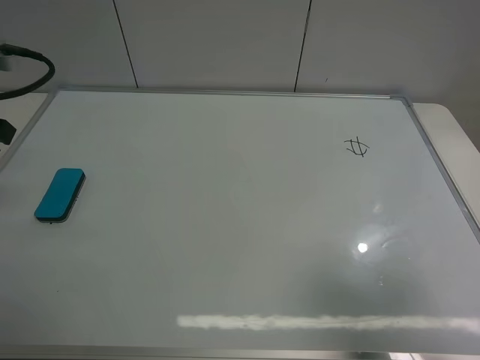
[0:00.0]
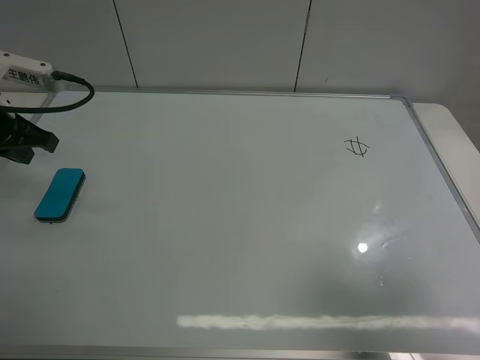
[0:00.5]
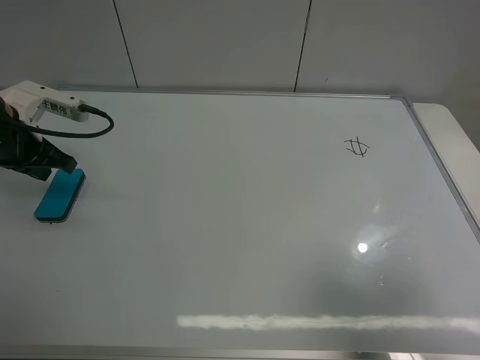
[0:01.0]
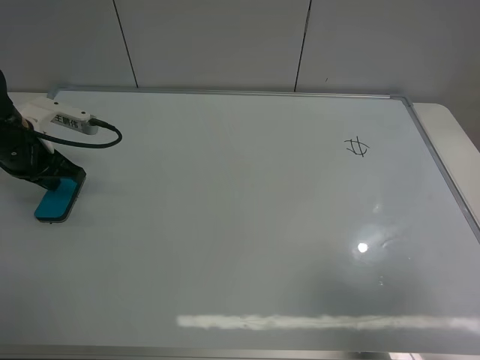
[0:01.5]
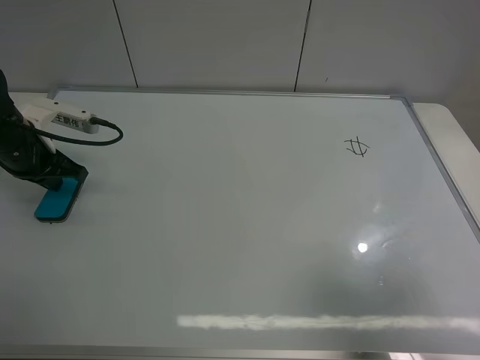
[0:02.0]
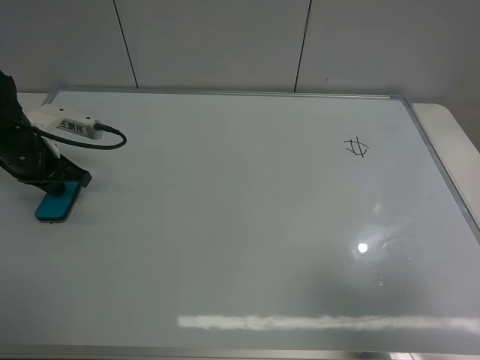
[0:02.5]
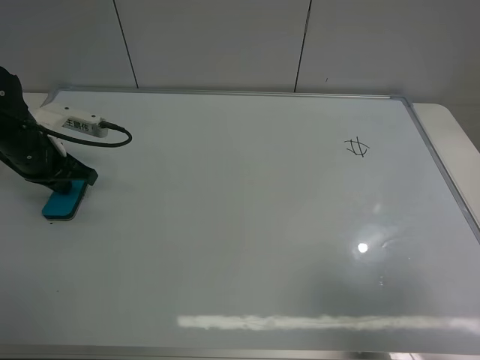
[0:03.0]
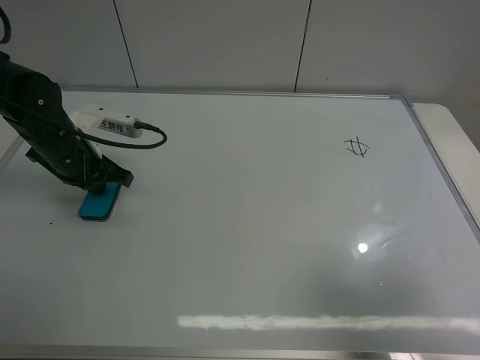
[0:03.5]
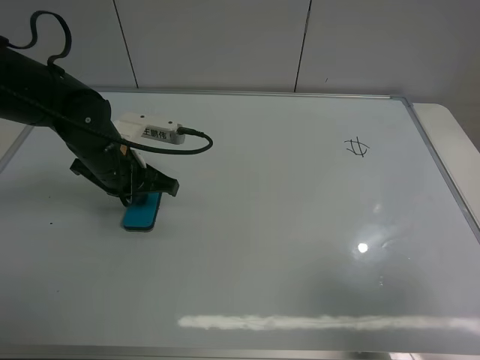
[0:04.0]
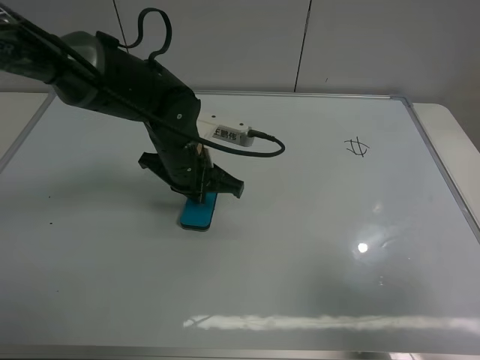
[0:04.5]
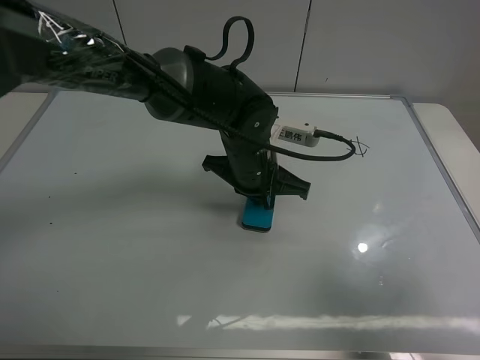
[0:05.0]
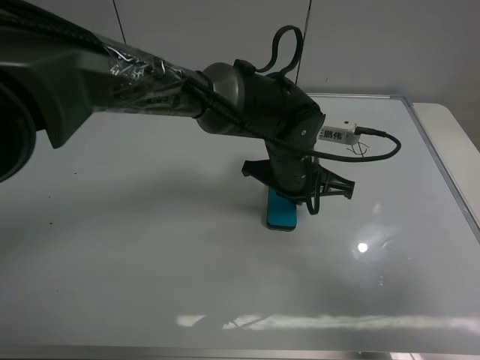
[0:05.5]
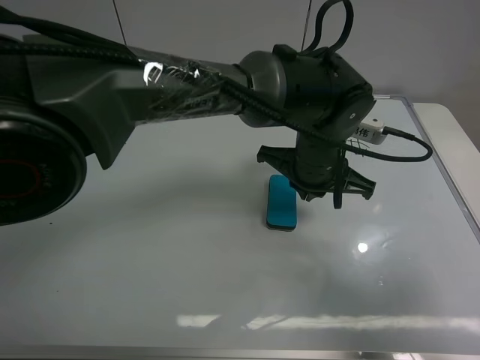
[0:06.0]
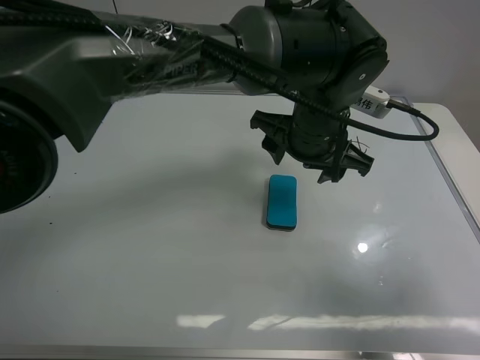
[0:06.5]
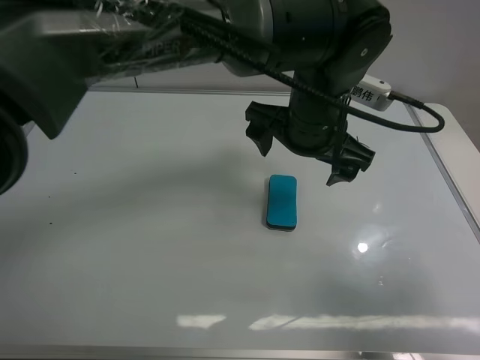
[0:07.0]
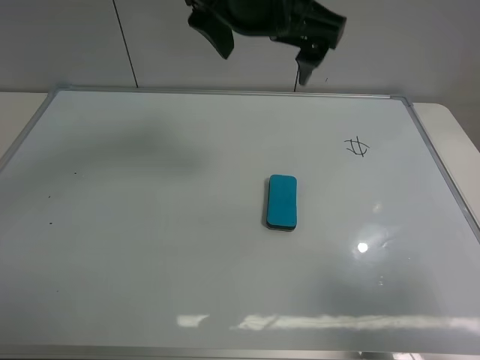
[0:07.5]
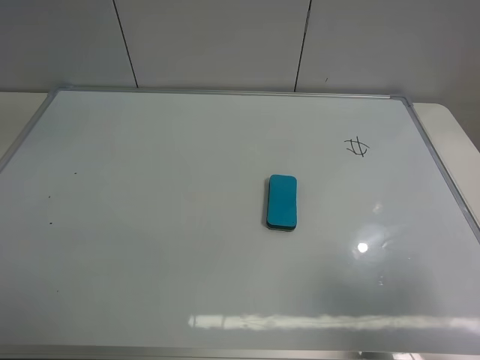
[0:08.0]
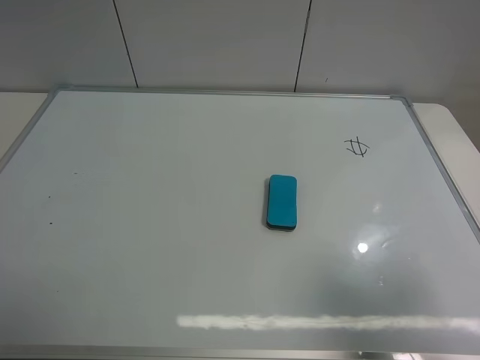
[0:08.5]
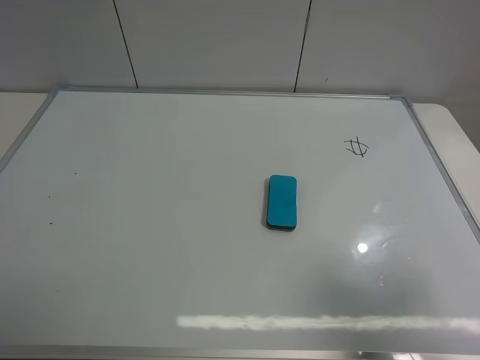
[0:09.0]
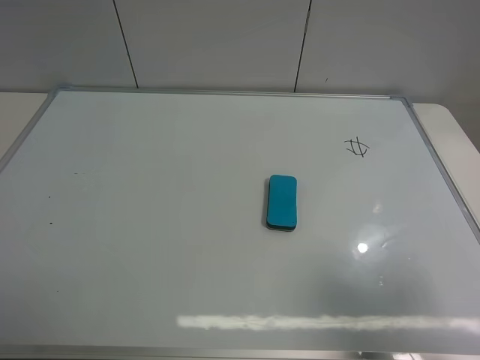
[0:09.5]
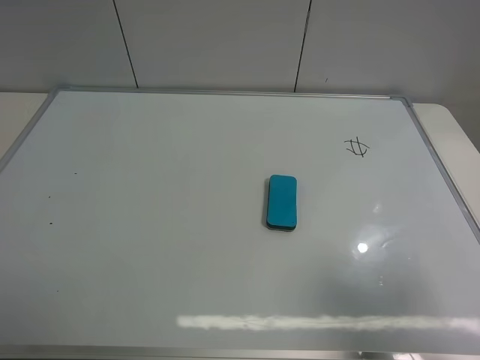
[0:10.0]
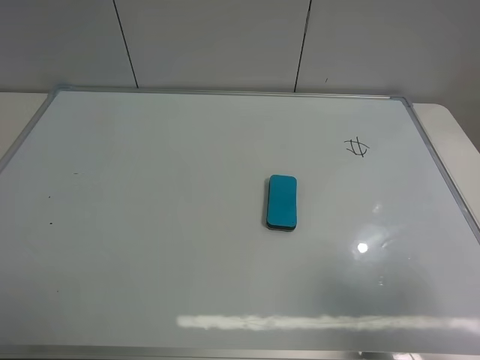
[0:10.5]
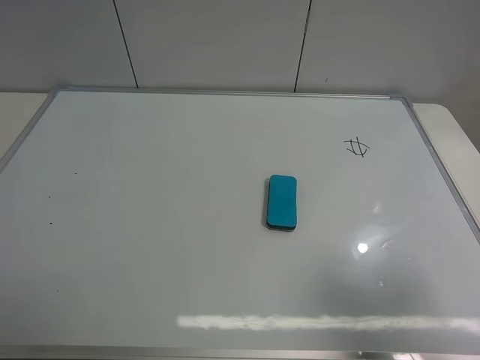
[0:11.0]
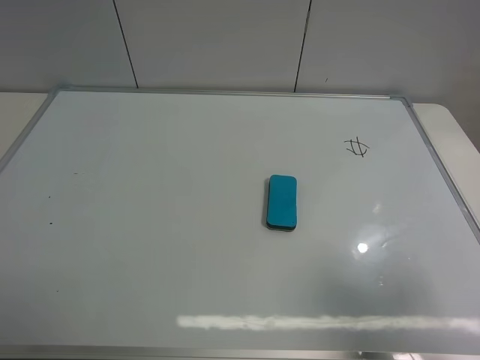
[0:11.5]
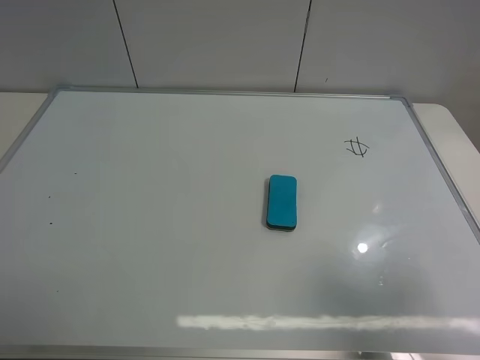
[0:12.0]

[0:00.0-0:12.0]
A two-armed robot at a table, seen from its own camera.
Task of the whole recording: use the left gripper to place the eraser in the right, use the right gripper to pick up the eraser, wipe the notes on the whiteboard clean, and then put it down.
Step, 0:00.0 to 0:05.5: Move the board eraser to the right of the whiteboard with left gripper.
0:00.0 to 0:02.0: The left gripper is displaced downward and forward by some 15 cm.
0:02.0 to 0:04.0: The left gripper moves to the right, about 15 cm.
0:04.0 to 0:06.0: The left gripper moves to the right, approximately 25 cm.
0:06.0 to 0:08.0: The left gripper moves upward and to the left, approximately 40 cm, and opens its fingers.
0:10.0 to 0:12.0: The two grippers keep their place.

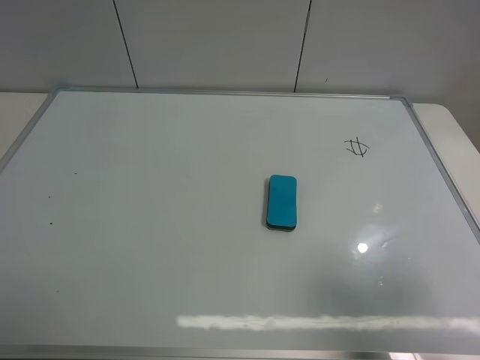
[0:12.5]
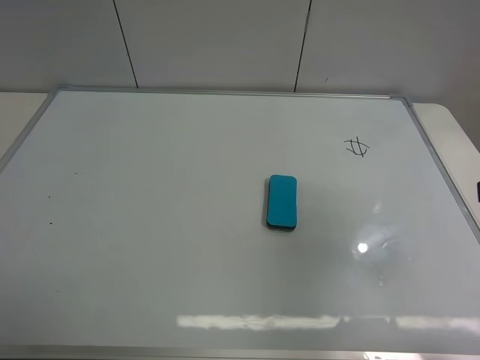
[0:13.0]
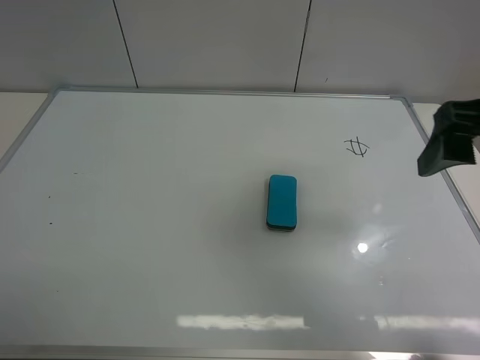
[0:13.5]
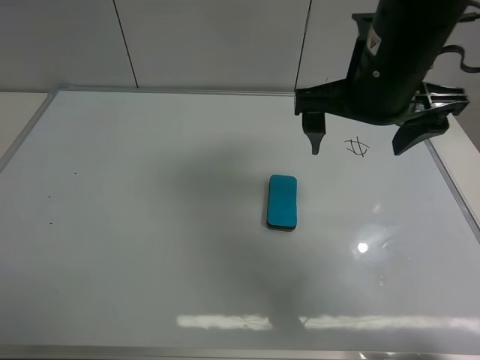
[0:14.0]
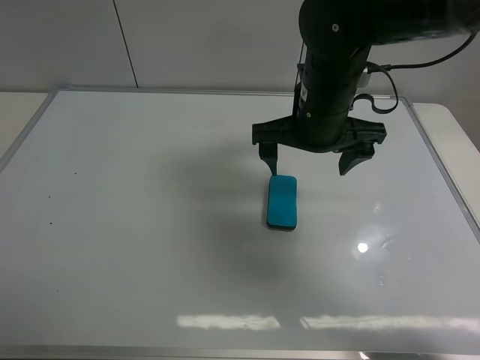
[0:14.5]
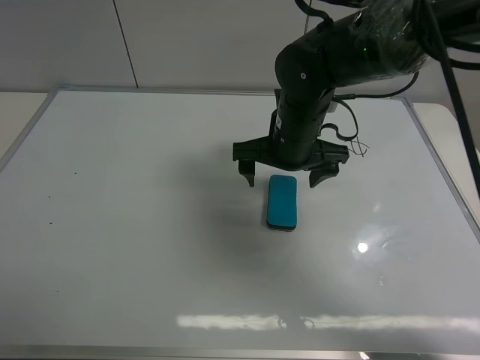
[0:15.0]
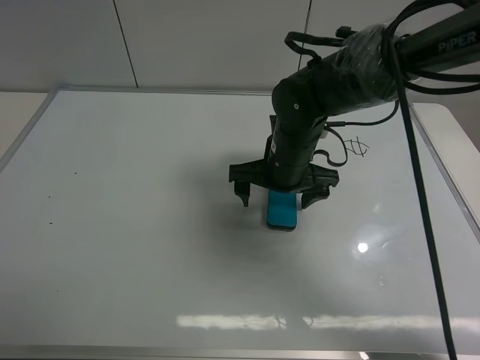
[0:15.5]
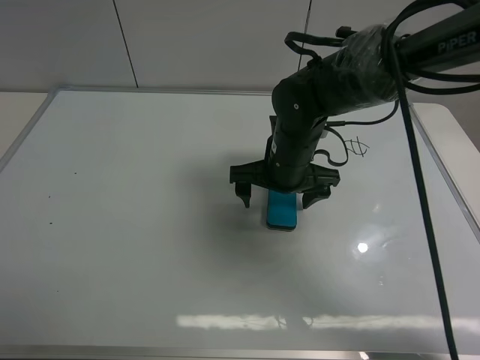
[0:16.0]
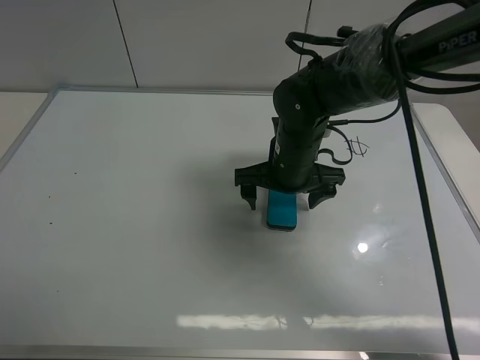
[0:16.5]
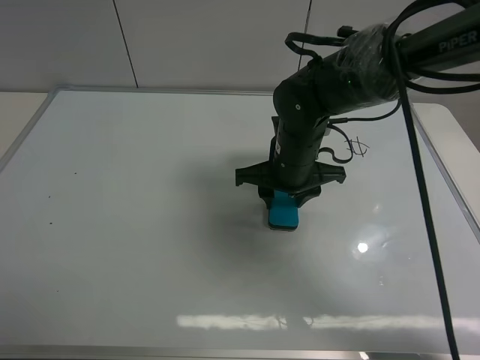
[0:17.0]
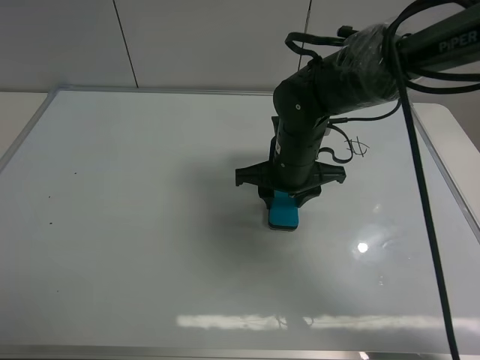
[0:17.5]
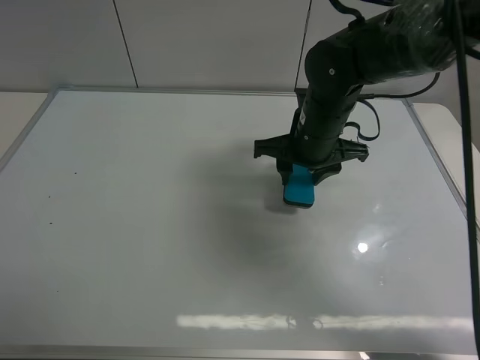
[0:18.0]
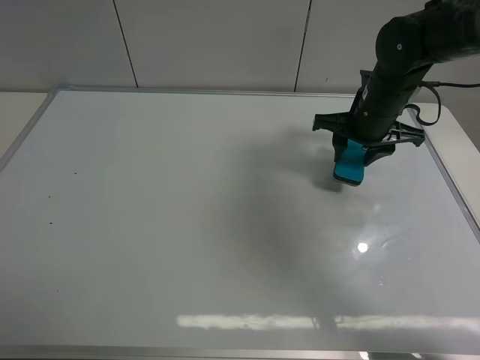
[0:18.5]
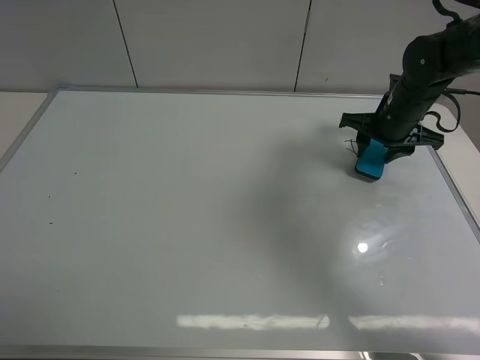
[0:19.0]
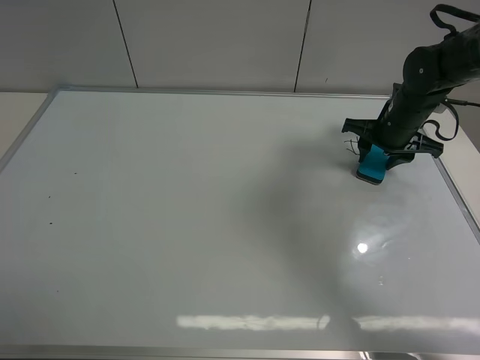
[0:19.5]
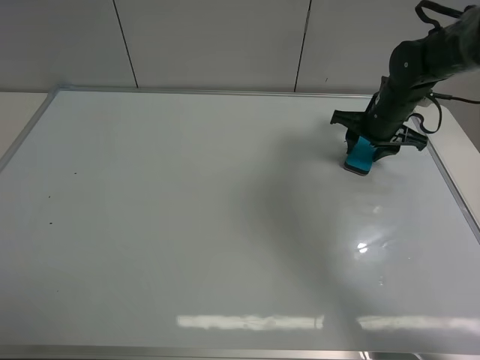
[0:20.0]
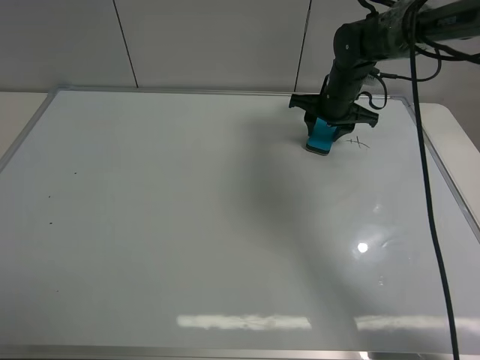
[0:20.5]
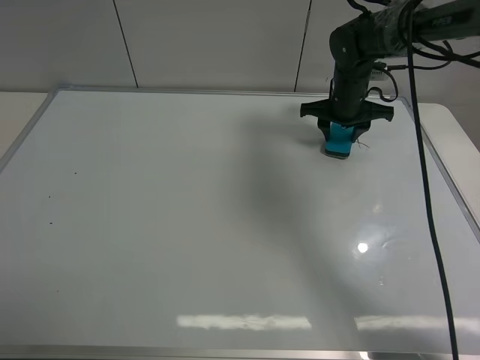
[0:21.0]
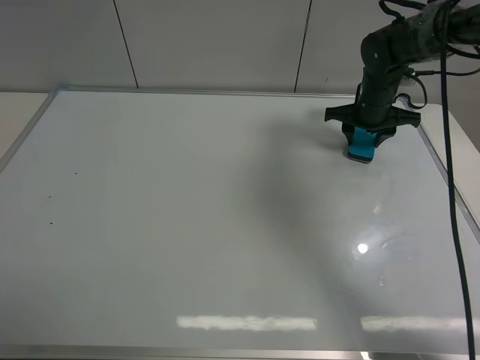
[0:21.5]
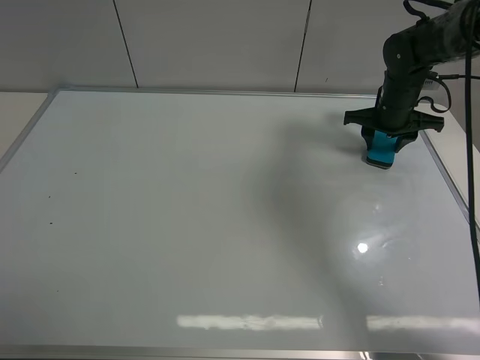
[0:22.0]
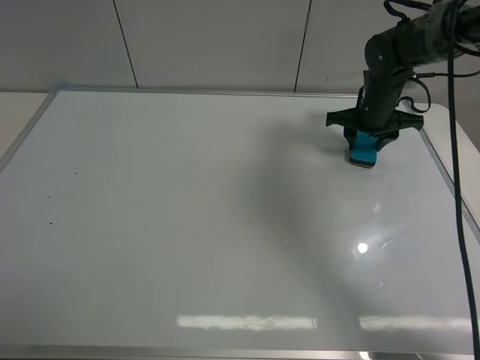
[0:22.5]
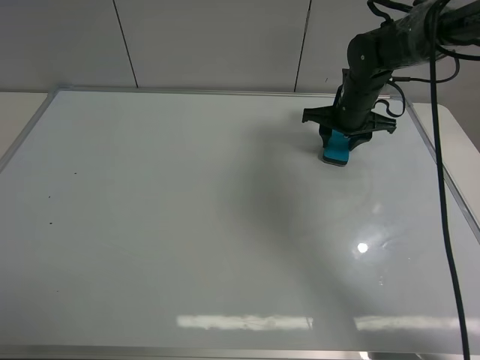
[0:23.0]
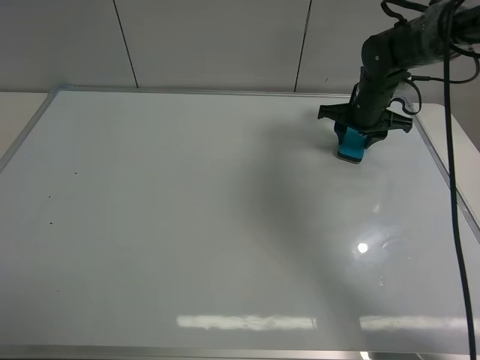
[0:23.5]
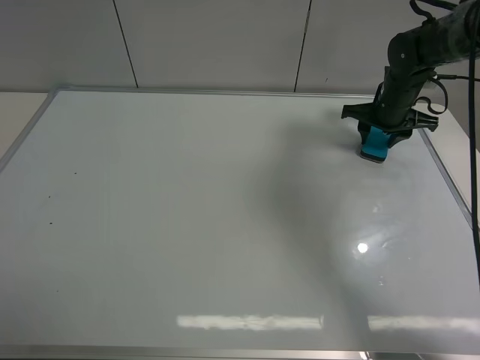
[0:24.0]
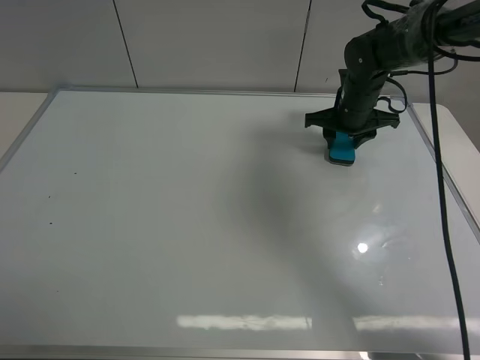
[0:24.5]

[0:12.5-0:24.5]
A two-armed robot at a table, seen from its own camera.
Task of the whole recording: use the left gripper to place the eraser in the right, use the right gripper to pick up the eraser, wipe the notes on the whiteboard clean, and then put it down.
Step, 0:12.5 to 0:17.5: Pick up the board eraser with right gripper.
0:12.5 to 0:14.5: The right gripper is displaced forward and to the left by roughly 35 cm.
0:14.5 to 0:16.5: The right gripper shifts roughly 10 cm downward.
0:16.5 to 0:18.5: The right gripper shifts about 15 cm to the right and forward, and closes.
0:18.5 to 0:20.5: The right gripper moves forward, some 10 cm.
0:20.5 to 0:22.5: The right gripper moves to the right, about 5 cm.
0:22.5 to 0:24.5: The right gripper goes left and right, approximately 10 cm each way, reversing 2 times.

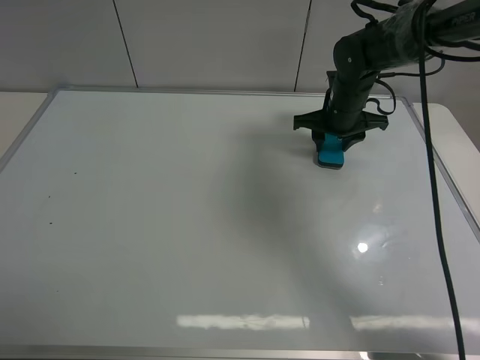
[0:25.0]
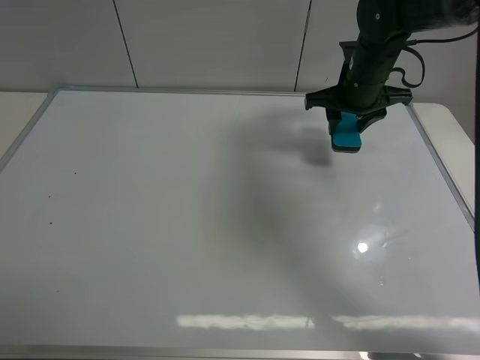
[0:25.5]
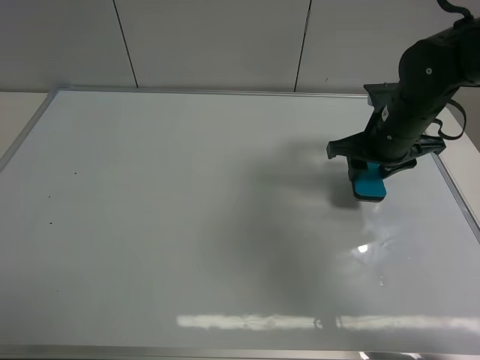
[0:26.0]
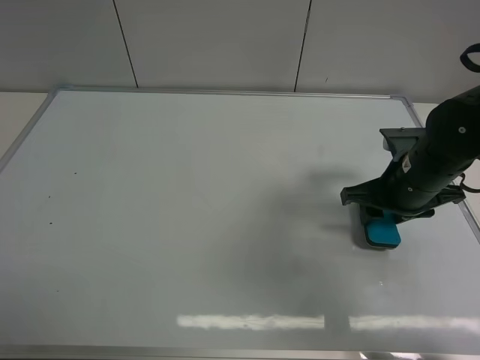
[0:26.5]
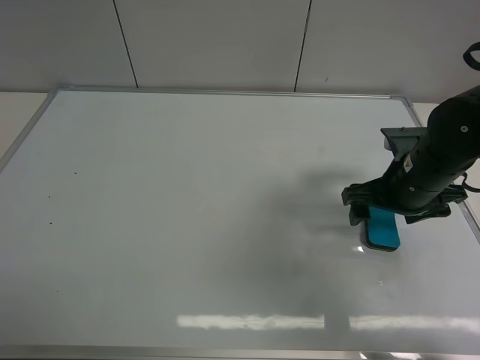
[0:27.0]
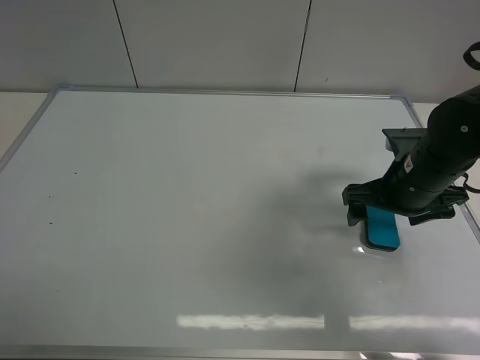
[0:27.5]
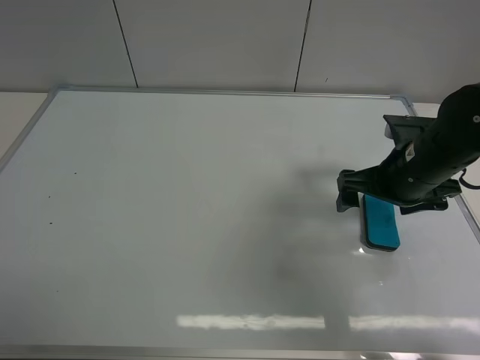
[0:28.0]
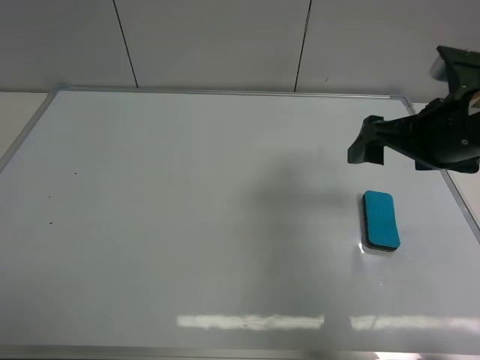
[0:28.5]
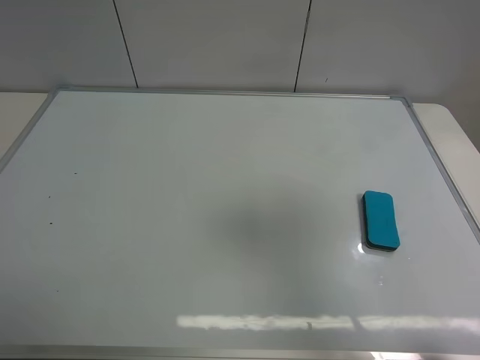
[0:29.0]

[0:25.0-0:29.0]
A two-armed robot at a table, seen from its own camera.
Task of the whole recording: use the left gripper to place the eraser in the right, use the right gripper to pick up the eraser, wipe the notes on the whiteboard clean, and then put it down.
Step, 0:25.5 to 0:27.0: Place the board eraser on the right side of board with right gripper.
0:25.0 to 0:27.0: The right gripper is displaced backward by about 15 cm, and opens.
0:27.0 to 0:29.0: The right gripper shifts about 30 cm upward and backward.
